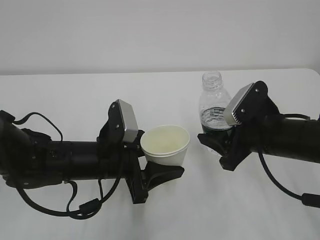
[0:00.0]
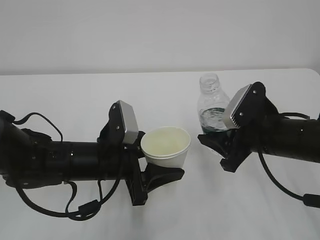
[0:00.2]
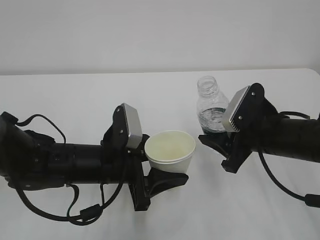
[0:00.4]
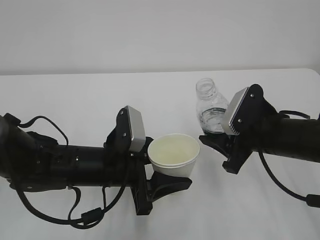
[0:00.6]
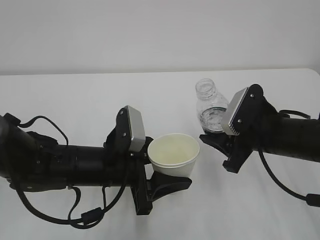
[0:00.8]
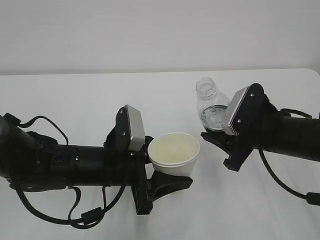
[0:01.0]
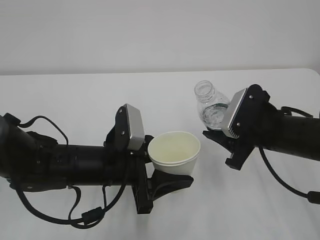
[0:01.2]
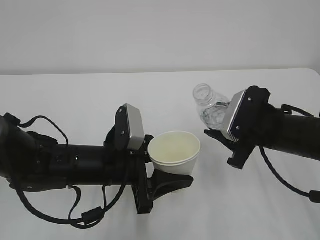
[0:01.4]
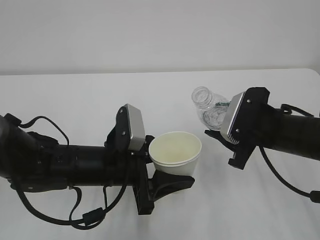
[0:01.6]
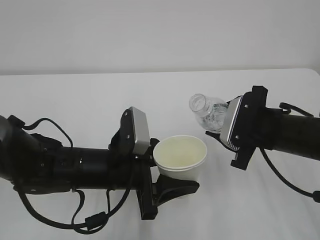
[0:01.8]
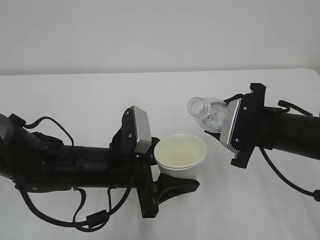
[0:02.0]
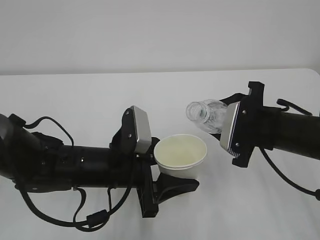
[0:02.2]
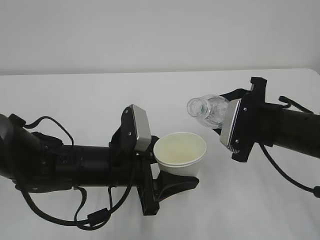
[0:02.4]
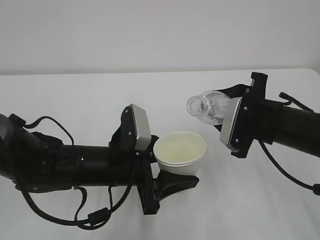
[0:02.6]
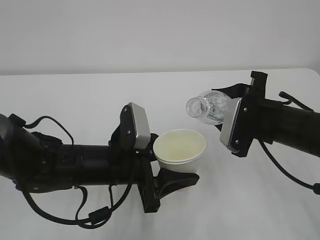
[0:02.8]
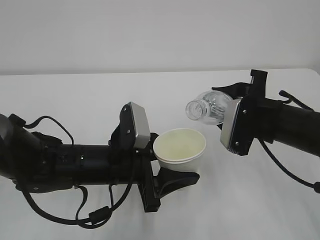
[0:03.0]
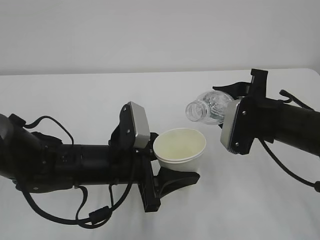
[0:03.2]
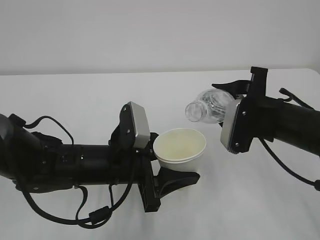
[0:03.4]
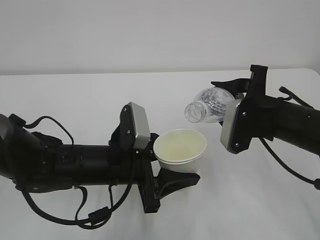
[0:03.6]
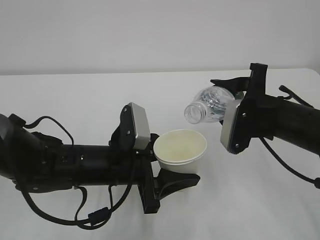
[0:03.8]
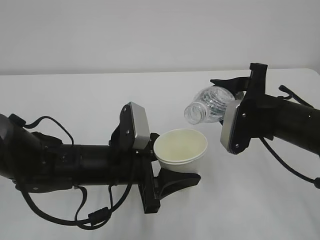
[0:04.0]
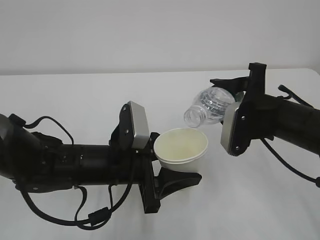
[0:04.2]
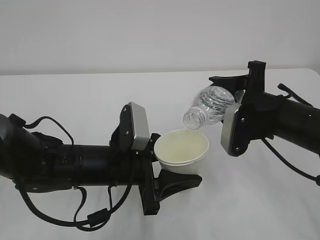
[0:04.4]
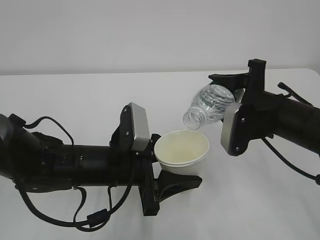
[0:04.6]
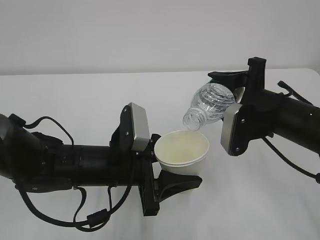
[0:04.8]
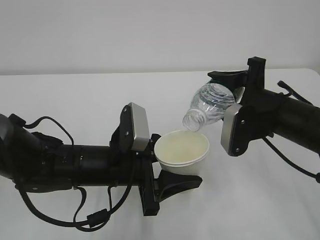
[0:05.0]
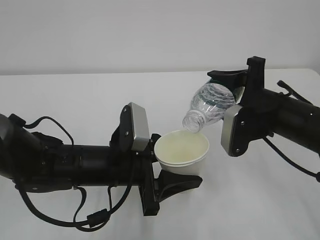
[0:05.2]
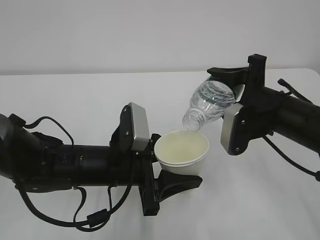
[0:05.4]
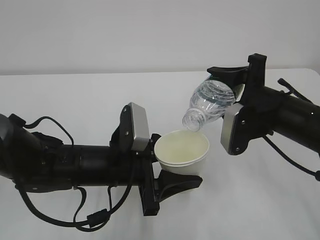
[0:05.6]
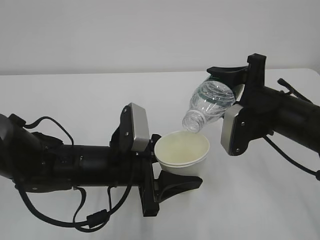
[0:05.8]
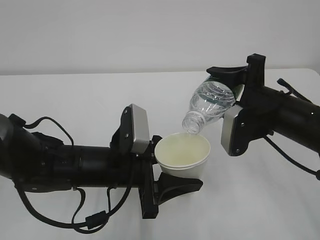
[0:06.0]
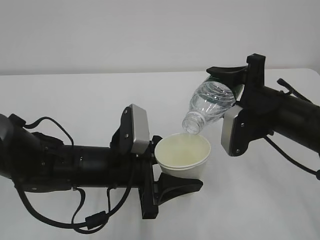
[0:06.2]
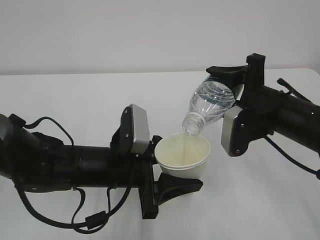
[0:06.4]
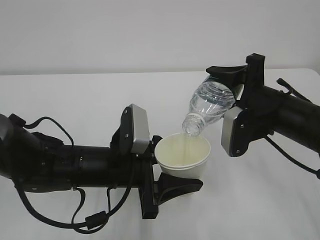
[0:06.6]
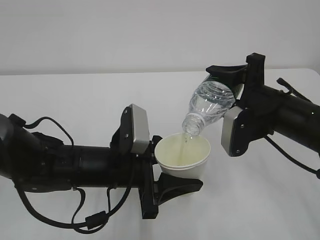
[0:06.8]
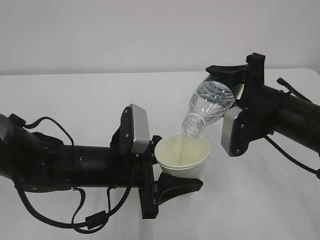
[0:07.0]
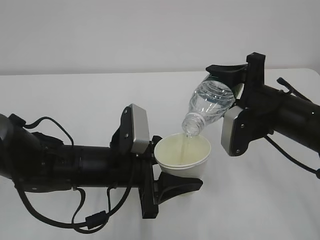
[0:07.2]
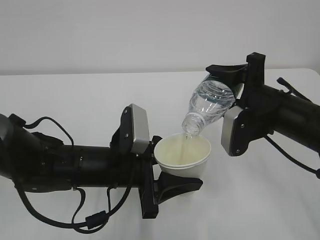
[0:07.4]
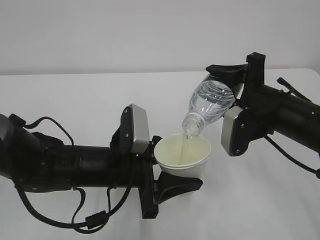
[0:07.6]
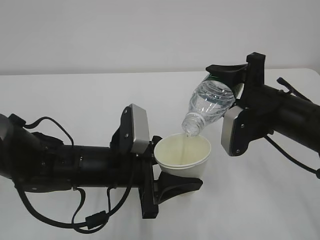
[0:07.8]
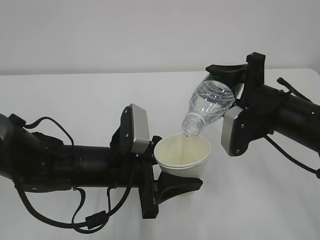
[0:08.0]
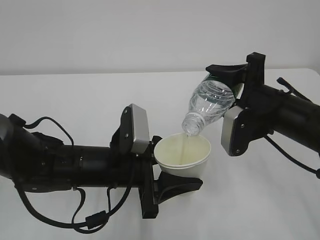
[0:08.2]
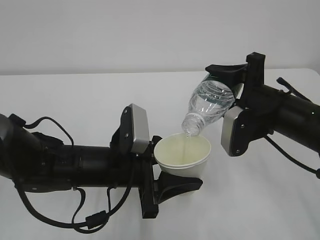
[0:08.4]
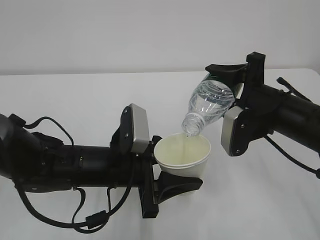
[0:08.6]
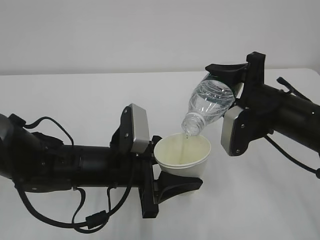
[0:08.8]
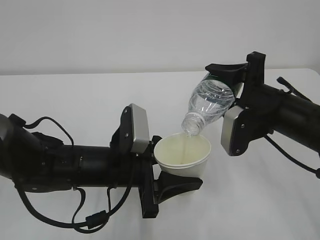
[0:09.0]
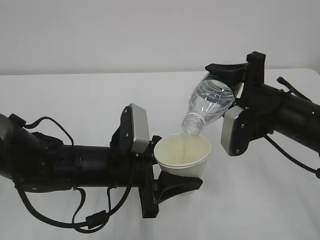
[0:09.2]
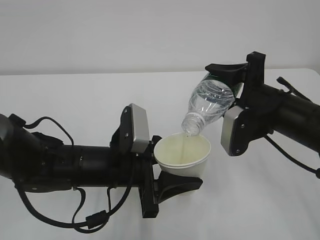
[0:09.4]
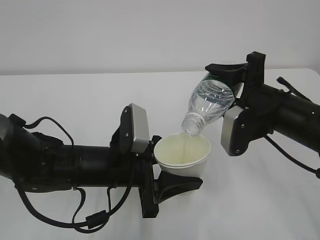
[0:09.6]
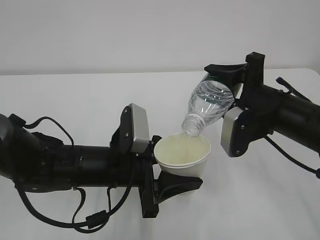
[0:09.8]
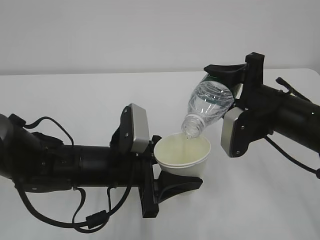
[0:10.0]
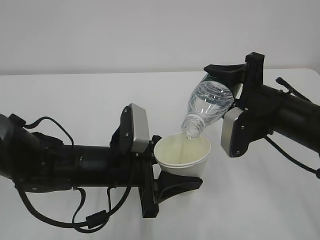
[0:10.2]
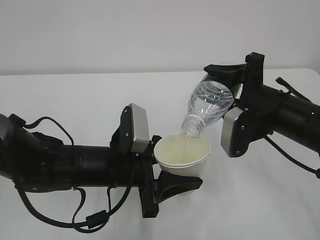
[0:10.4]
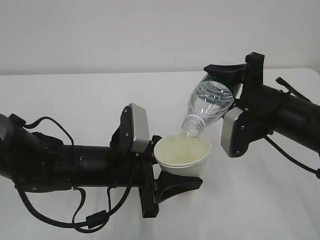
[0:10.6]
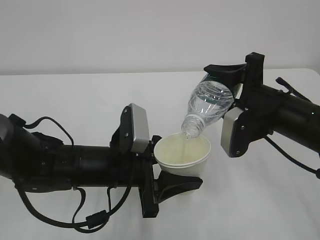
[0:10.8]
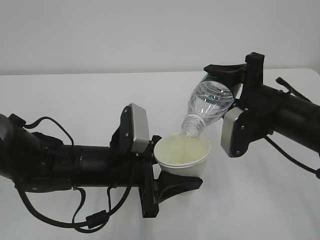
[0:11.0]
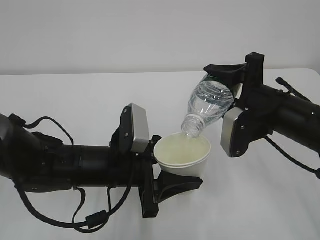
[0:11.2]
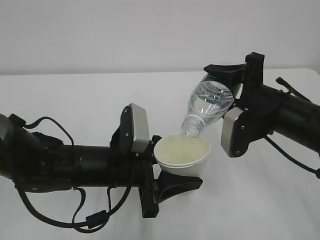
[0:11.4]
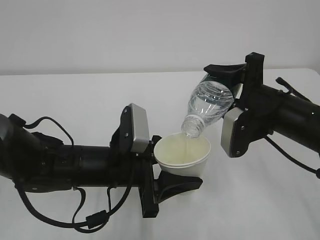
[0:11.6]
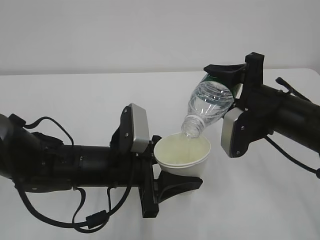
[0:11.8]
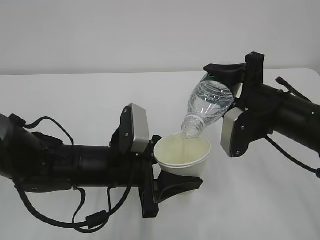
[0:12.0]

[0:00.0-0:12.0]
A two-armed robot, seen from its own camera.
0:03.0 to 0:04.4: The grippers stay close to where they were, moving slightly.
0:04.4 to 0:06.0: There are only small adjustments of the grippers.
0:06.0 to 0:12.0: Neither gripper changes place.

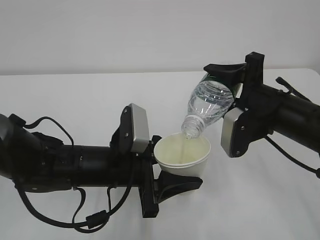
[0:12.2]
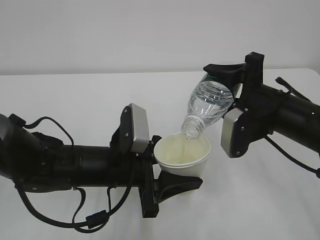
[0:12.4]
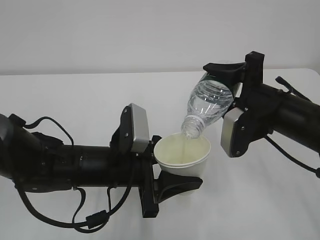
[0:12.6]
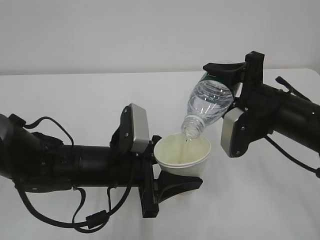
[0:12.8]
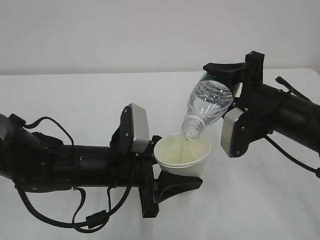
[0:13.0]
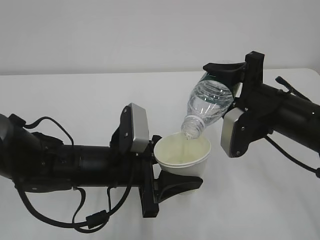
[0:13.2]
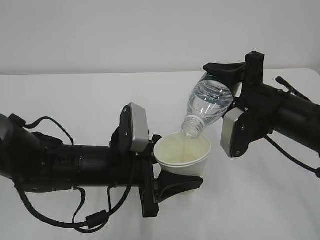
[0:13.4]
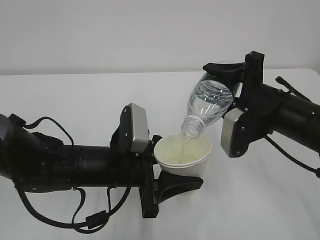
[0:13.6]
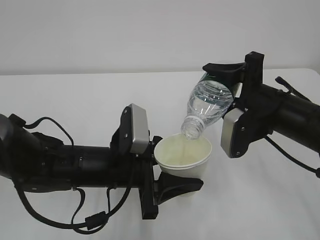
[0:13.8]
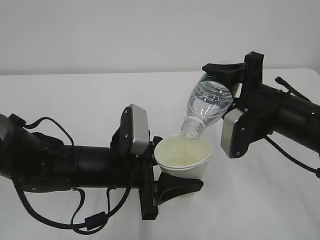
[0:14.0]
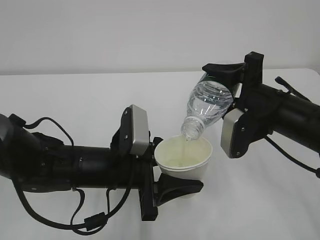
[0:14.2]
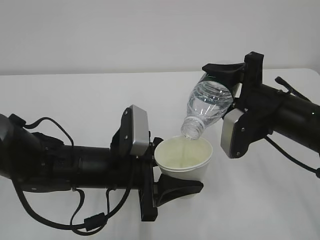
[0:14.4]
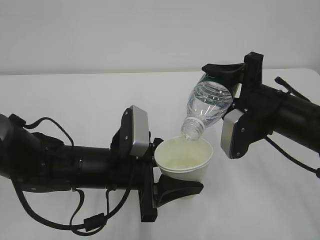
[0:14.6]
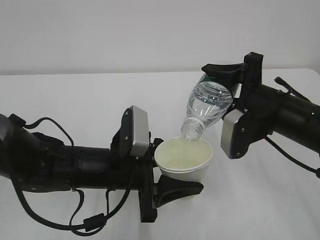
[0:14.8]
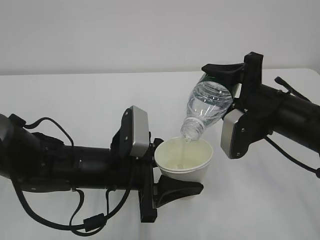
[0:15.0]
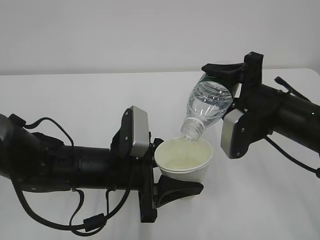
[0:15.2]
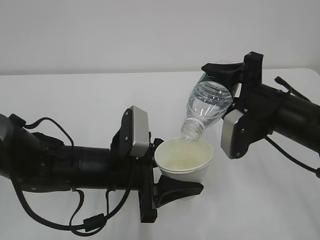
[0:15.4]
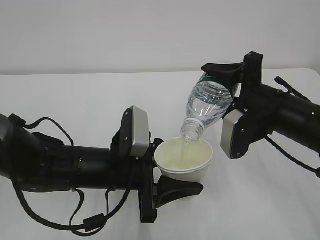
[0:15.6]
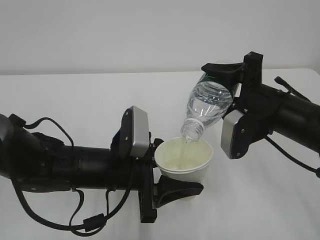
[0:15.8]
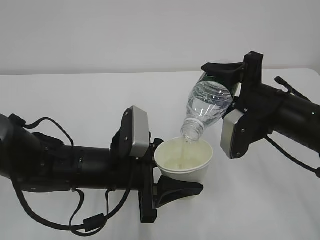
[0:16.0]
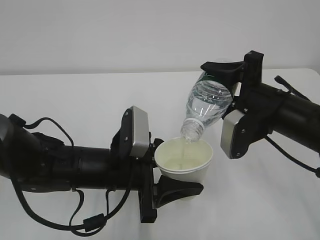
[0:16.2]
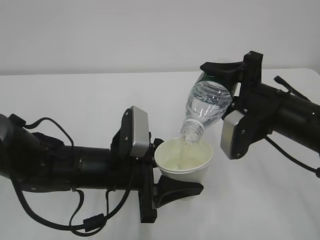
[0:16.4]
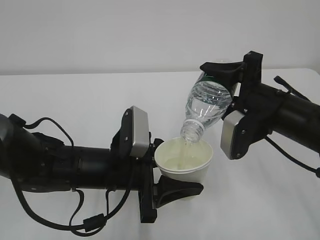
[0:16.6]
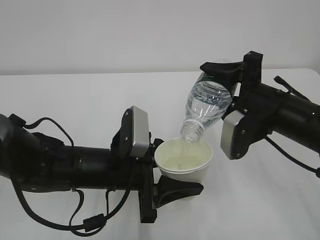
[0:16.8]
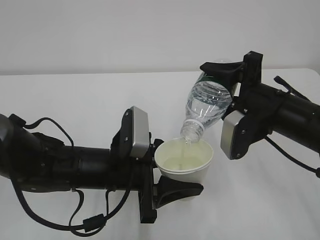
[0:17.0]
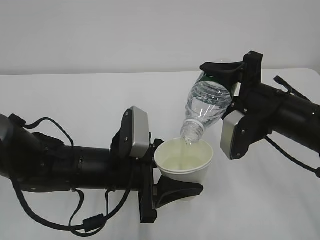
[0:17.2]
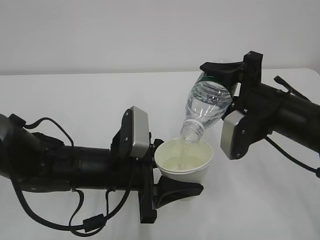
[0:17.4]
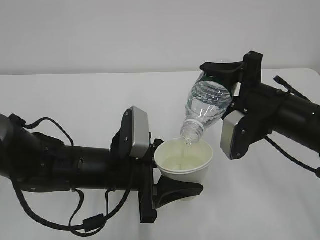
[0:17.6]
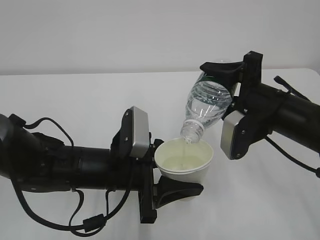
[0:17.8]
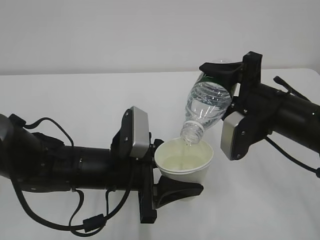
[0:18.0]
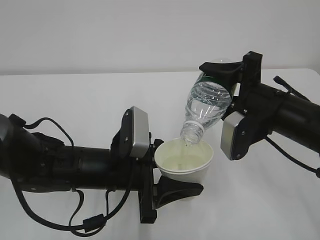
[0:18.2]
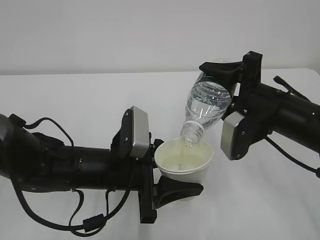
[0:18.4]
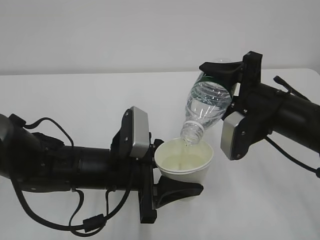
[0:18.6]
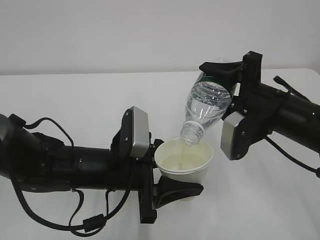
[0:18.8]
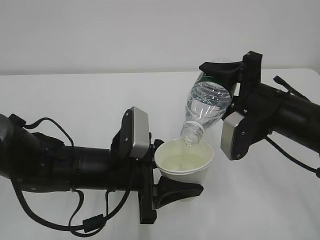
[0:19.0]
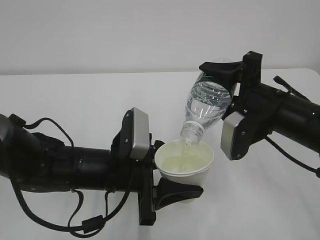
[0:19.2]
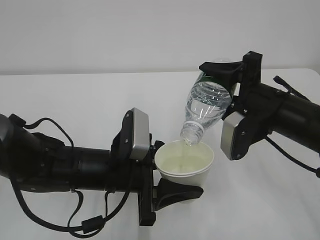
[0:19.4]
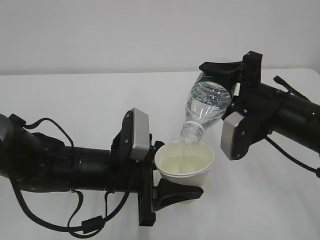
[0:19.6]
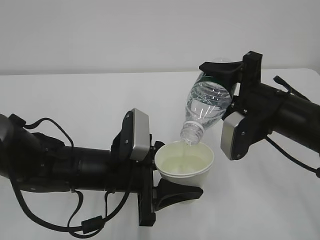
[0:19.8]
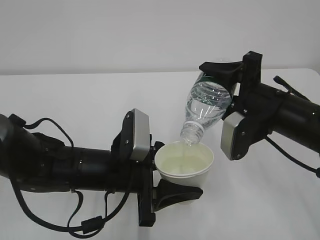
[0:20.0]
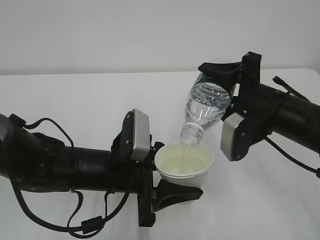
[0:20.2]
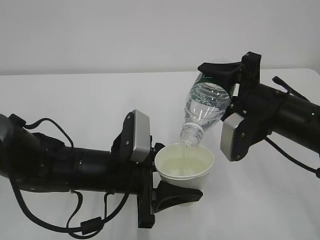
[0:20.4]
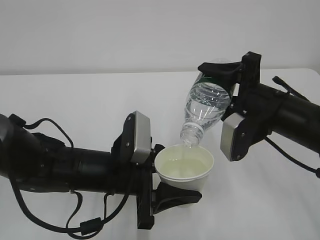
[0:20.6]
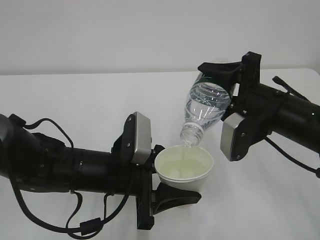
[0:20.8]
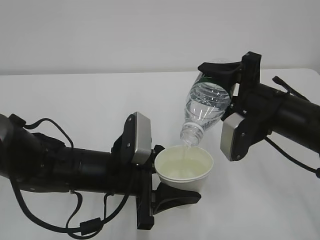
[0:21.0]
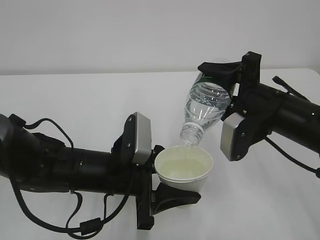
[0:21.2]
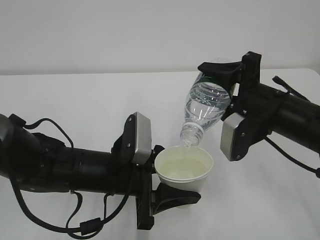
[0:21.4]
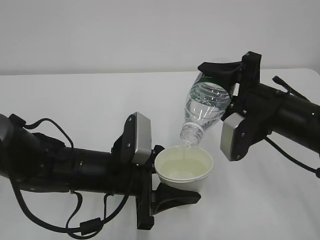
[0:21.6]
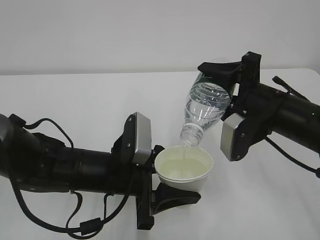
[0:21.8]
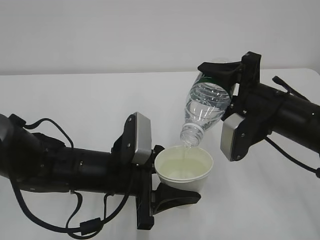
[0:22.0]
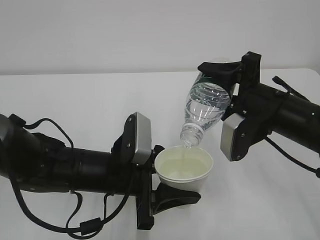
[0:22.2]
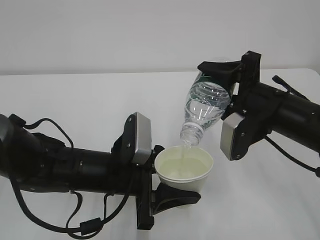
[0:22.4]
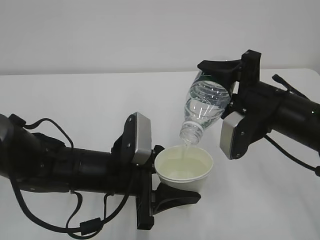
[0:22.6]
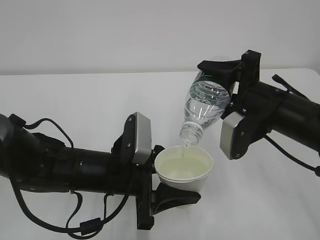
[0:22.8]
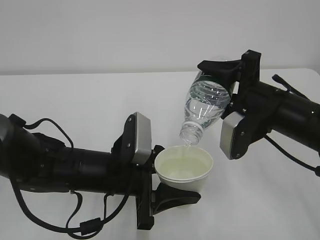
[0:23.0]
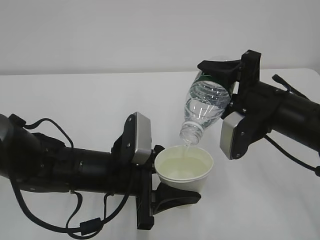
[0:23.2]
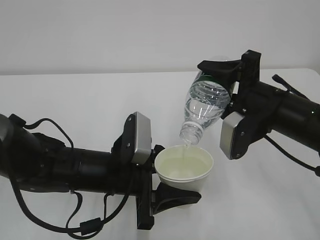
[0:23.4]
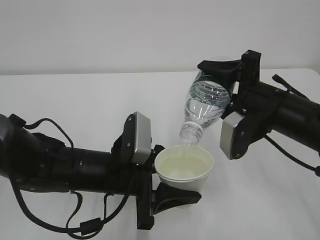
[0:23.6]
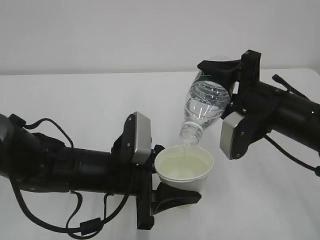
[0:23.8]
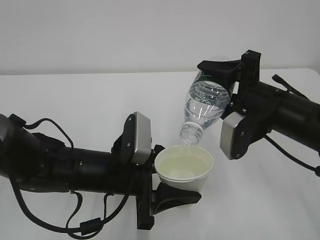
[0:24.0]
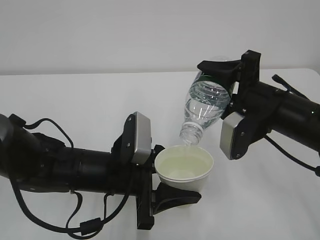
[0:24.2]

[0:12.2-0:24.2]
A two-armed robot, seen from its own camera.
0:12.2 to 0:16.6: Both grippers stay about where they are.
0:16.6 to 0:24.2: Both grippers stay about where they are.
